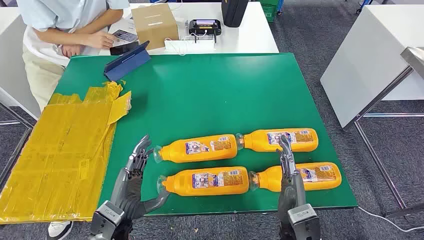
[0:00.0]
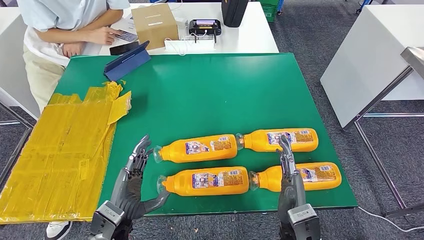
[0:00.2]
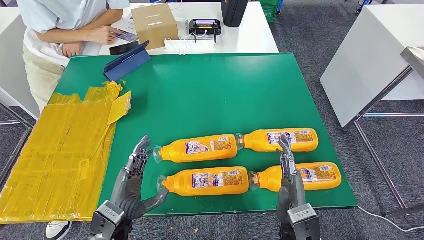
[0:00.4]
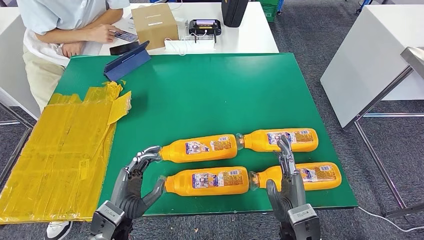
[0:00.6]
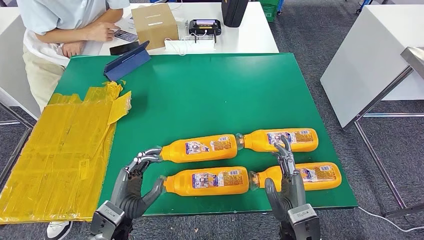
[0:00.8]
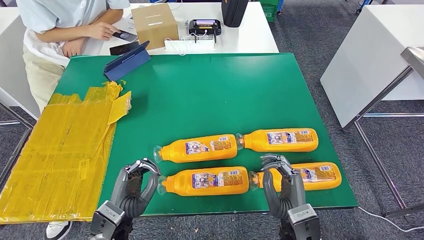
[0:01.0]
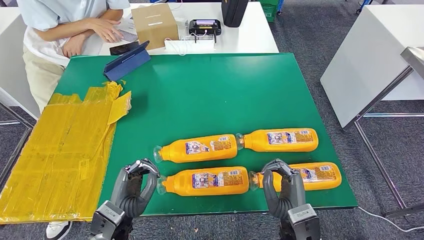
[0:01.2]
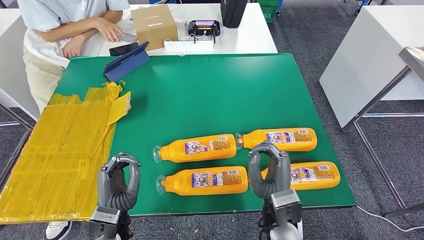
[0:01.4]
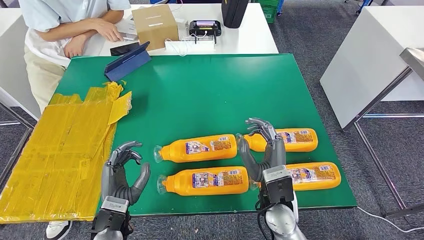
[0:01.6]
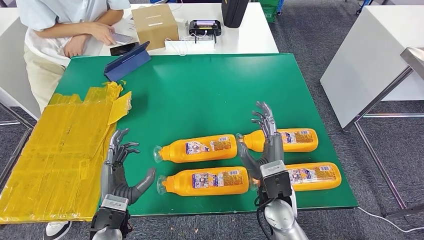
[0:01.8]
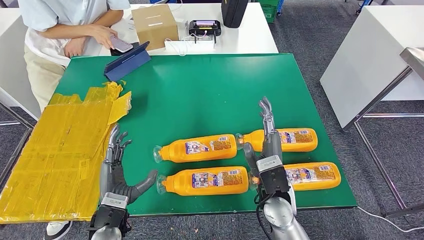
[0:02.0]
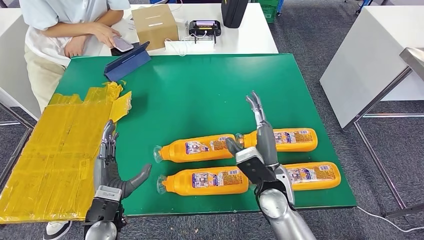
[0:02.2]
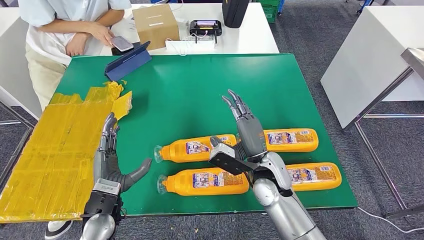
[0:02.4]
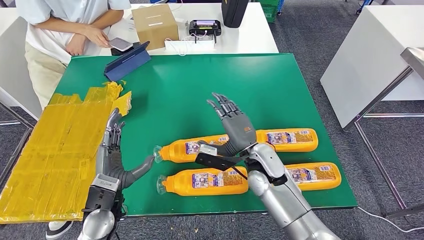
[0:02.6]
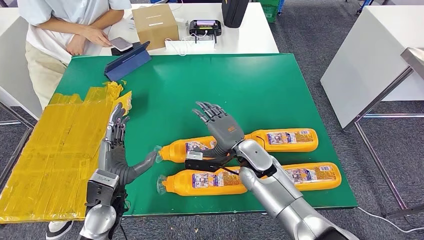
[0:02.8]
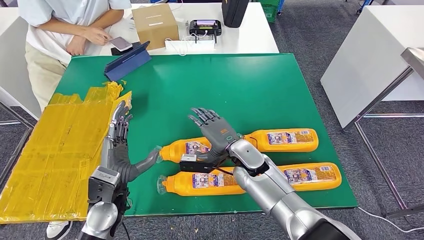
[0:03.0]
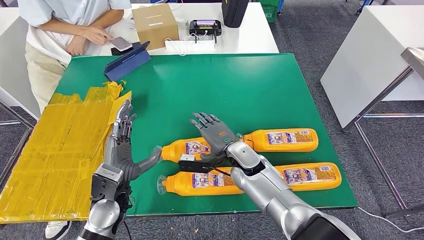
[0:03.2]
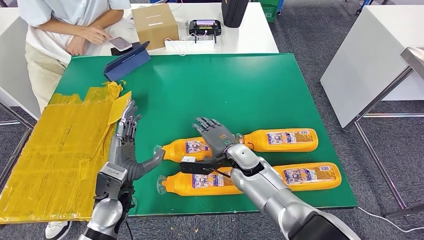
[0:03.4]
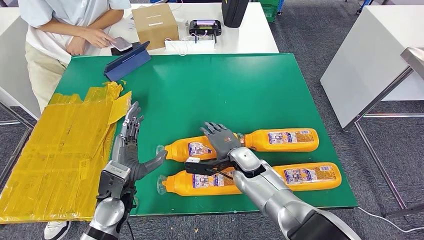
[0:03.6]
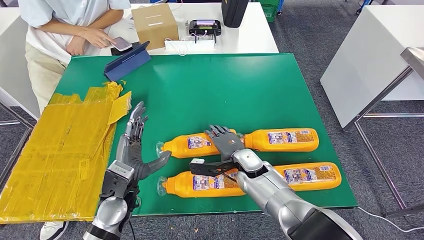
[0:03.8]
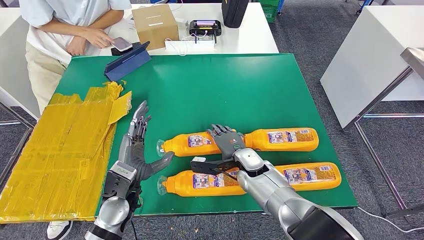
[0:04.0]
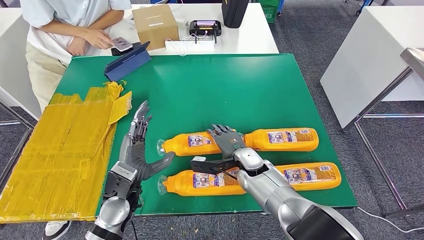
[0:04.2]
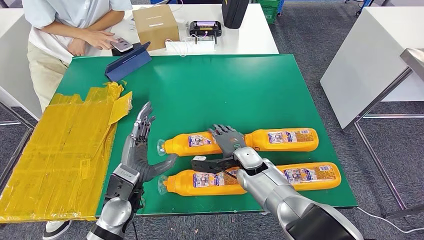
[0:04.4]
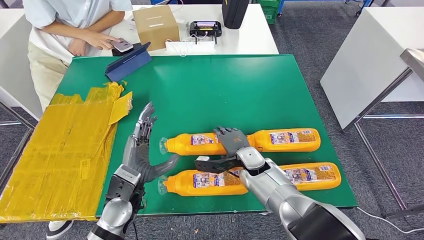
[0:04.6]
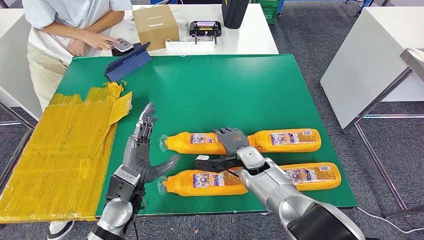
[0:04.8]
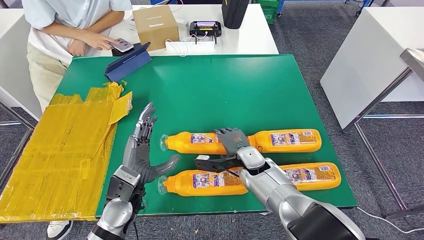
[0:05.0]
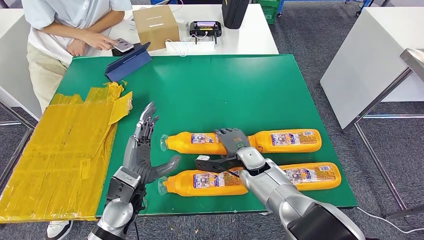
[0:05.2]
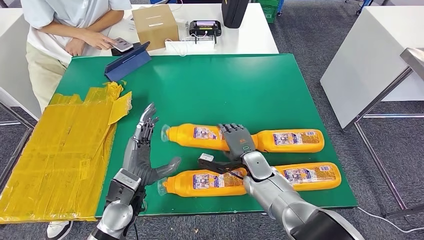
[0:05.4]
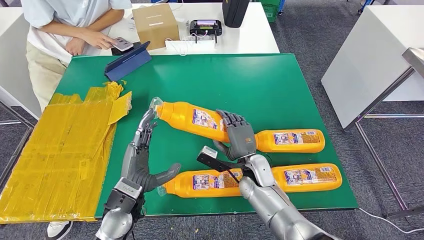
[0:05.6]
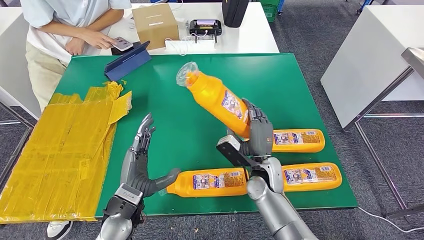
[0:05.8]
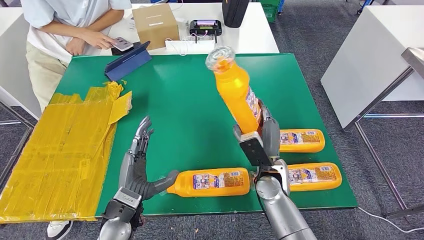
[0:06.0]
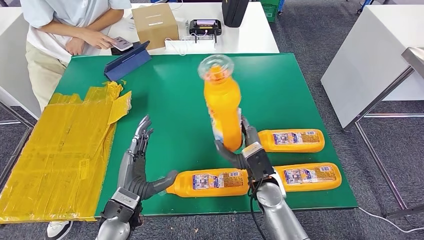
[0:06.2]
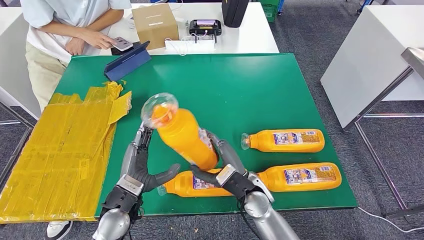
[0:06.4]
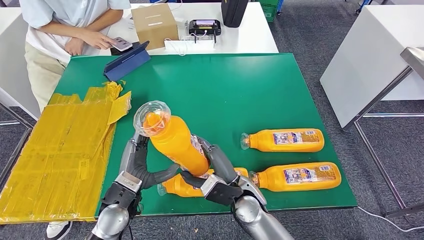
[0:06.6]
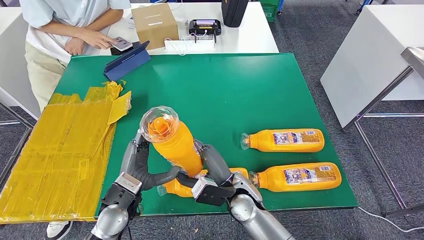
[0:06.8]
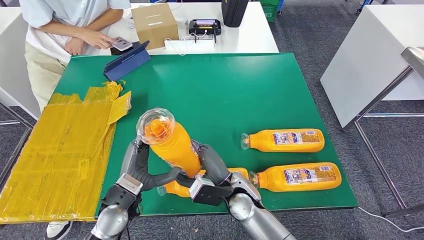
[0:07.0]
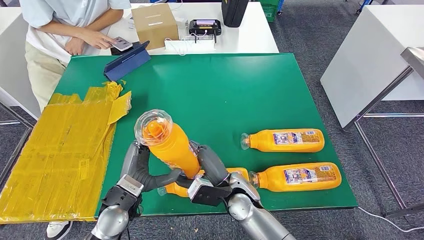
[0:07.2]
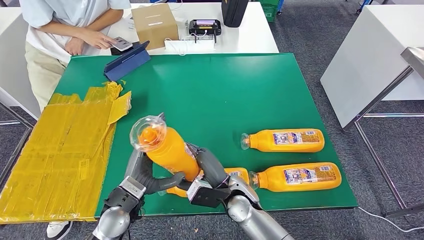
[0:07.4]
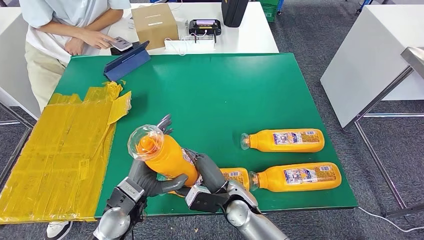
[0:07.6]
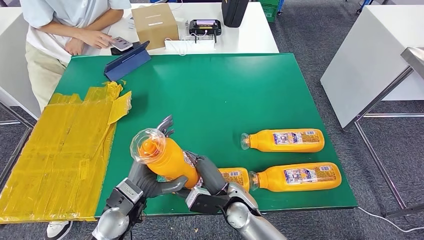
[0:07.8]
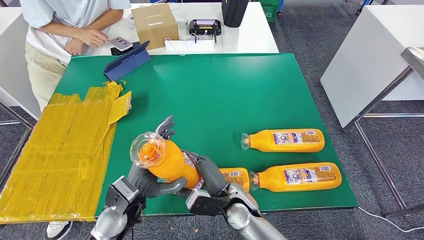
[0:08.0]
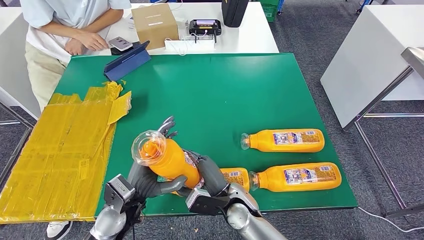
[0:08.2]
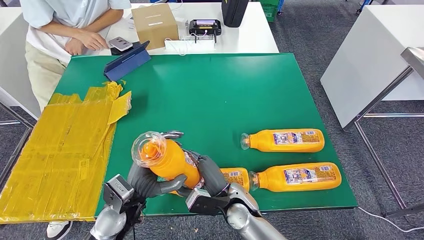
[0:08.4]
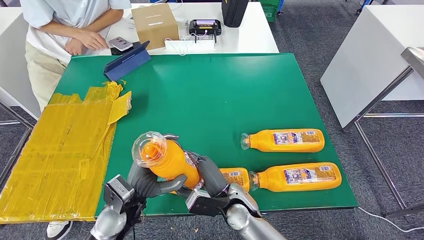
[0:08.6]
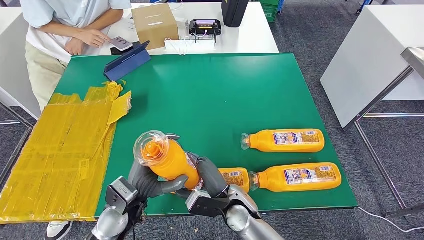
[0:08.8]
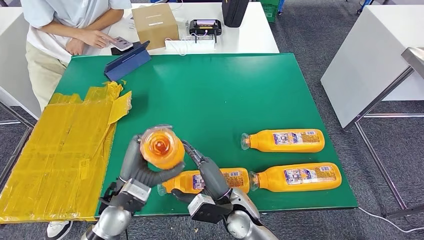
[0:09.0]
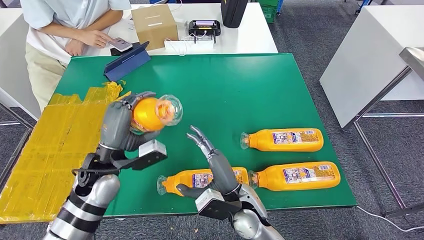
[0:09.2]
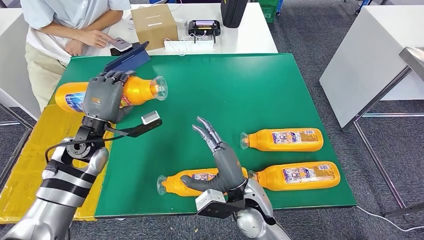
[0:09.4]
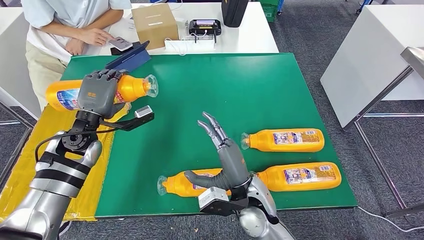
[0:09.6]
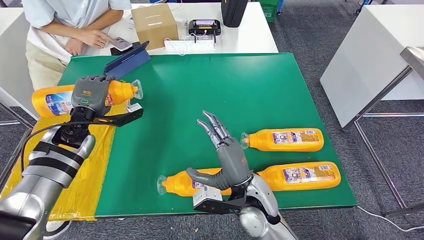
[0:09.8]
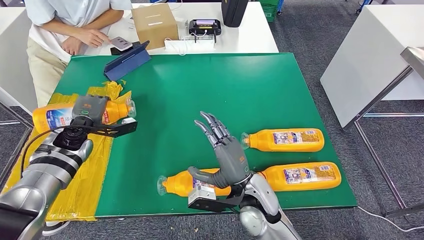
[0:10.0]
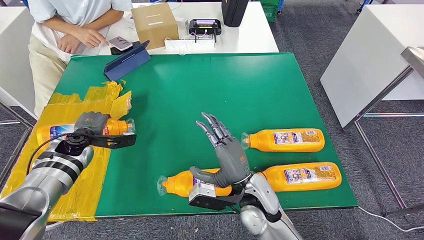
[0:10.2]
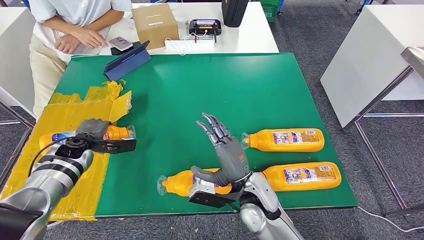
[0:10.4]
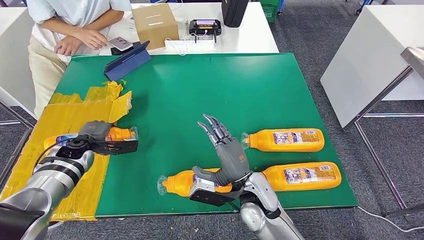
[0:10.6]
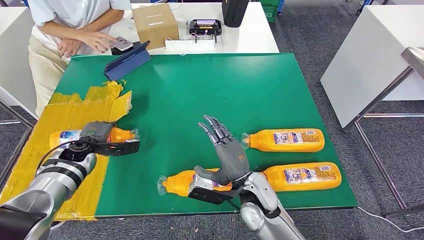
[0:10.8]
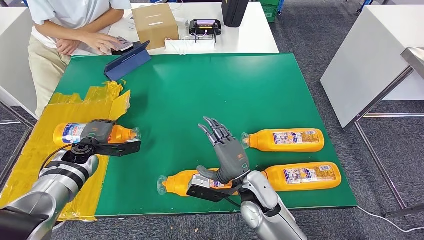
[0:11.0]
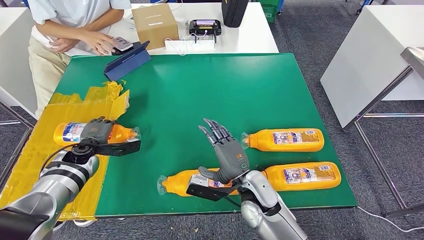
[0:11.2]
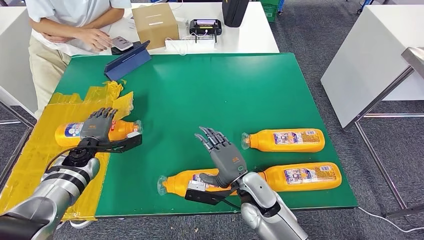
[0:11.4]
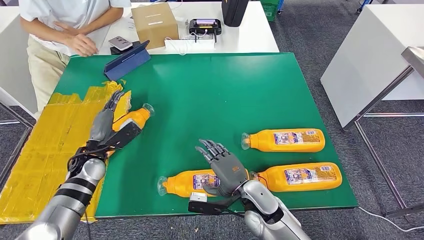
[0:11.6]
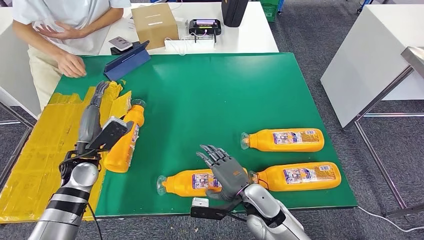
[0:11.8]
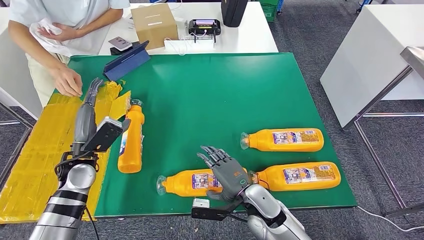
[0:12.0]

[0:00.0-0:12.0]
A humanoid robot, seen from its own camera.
Step, 0.0 to 5.8 s: Take the bottle from the table.
Step, 6.2 to 11.6 s: Flip the bottle to face forward.
1.6 to 3.0 s: The left hand moves forward, roughly 5 cm; the right hand shifts approximately 15 cm forward and to the left.
3.0 to 4.4 s: The right hand travels downward by about 5 cm.
4.4 to 6.0 s: The right hand moves backward, roughly 5 cm.
6.0 to 7.6 s: The right hand goes about 10 cm to the left and backward.
7.6 to 9.0 s: There are only small adjustments of the hands.
10.4 to 12.0 s: The right hand is displaced downward by roughly 5 cm. Meanwhile the left hand goes about 10 cm backward.

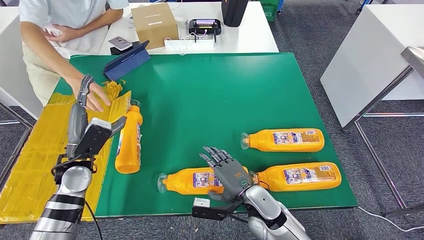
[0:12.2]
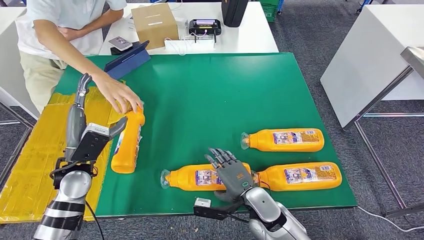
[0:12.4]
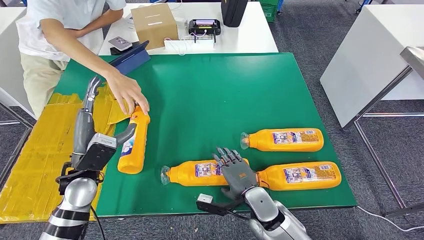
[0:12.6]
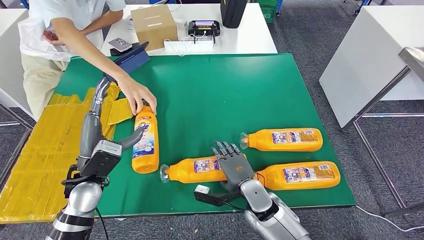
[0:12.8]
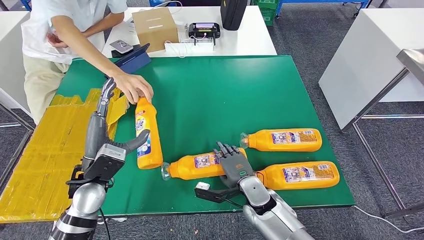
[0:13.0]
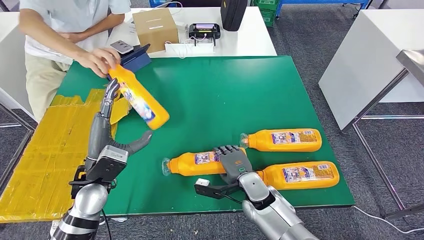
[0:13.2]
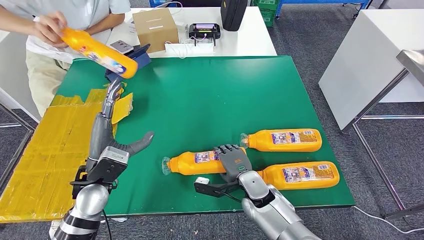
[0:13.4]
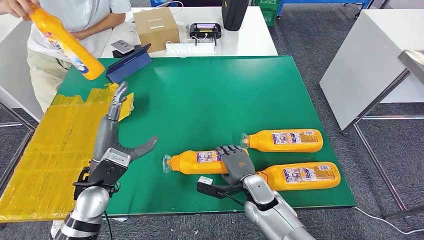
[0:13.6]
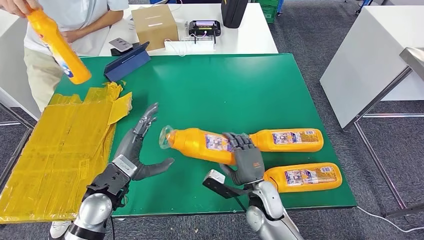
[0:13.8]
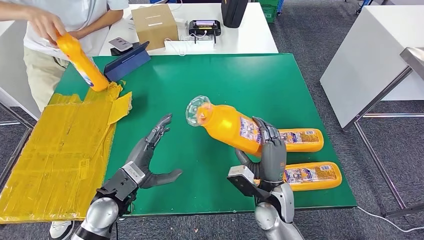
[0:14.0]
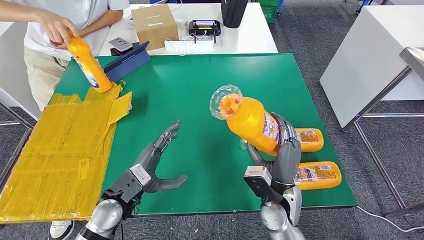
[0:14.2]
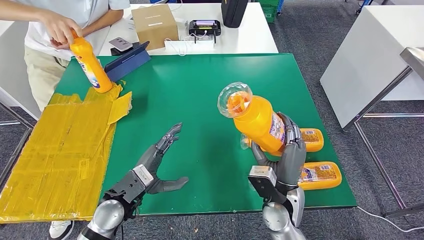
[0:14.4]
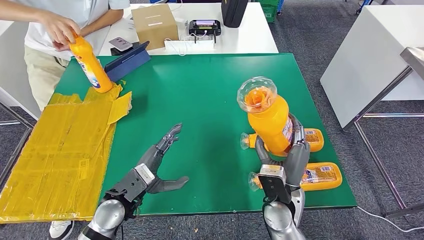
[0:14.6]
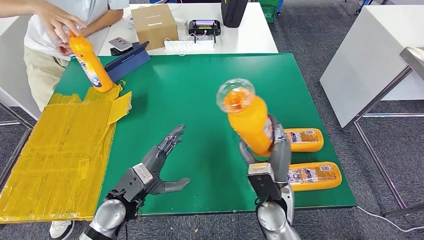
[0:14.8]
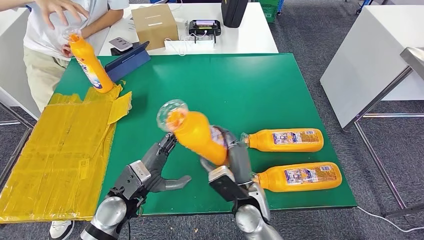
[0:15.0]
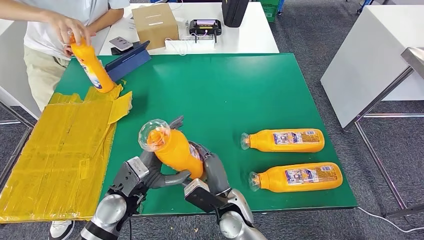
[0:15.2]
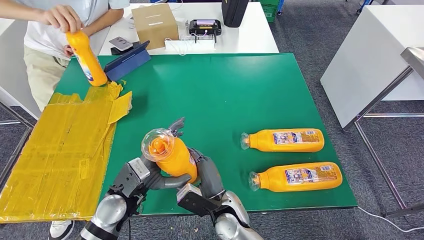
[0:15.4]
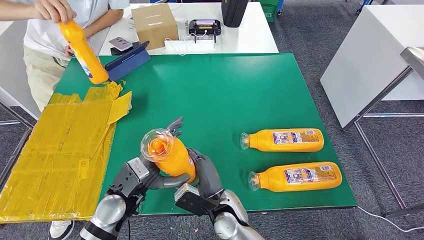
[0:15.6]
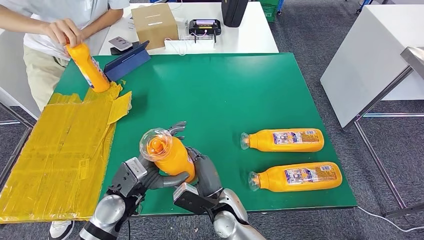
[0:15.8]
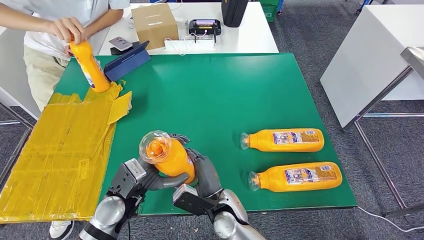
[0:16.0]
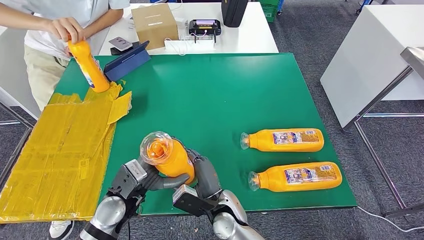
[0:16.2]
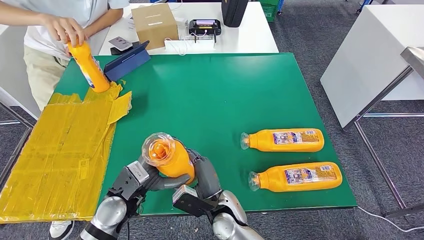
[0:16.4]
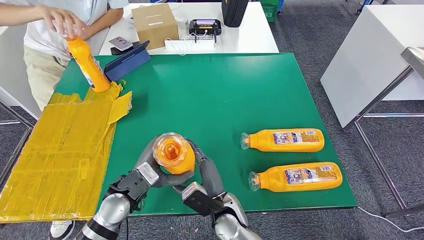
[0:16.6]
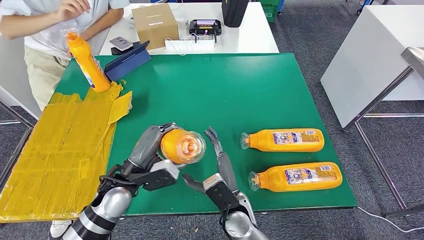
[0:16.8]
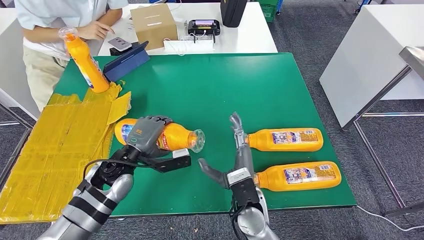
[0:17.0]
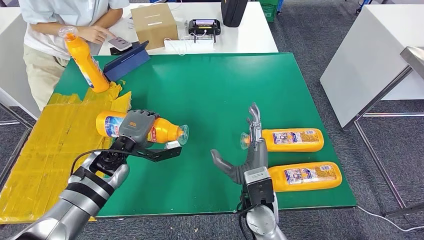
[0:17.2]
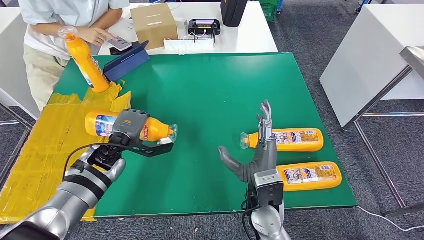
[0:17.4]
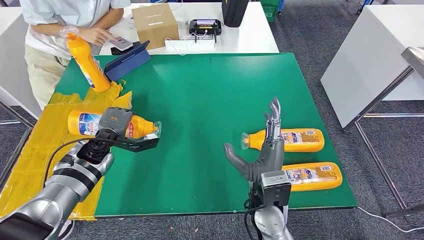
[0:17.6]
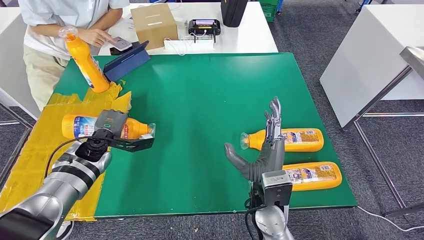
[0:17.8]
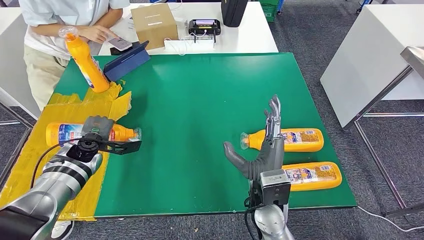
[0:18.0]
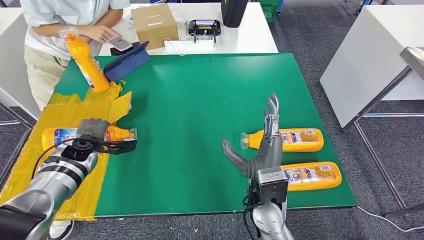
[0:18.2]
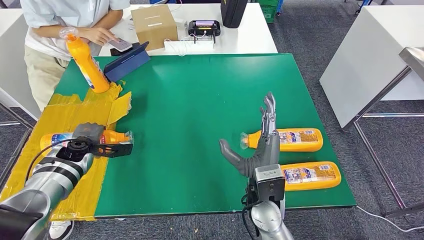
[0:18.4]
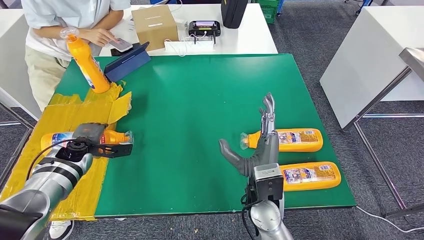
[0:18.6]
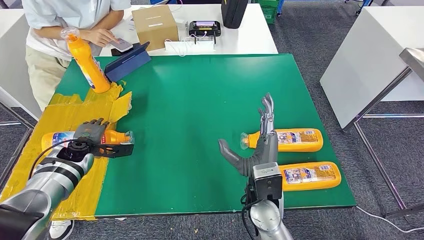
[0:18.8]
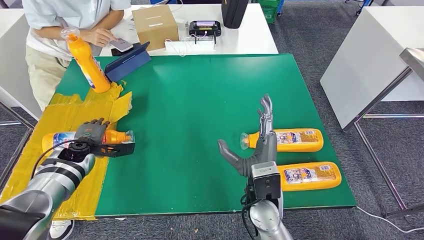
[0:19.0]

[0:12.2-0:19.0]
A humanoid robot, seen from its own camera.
Step, 12.2 to 14.2 s: Pick up the bottle from the table.
Step, 14.6 to 18.4 s: Flip the bottle to face forward.
15.0 to 16.2 s: The right hand travels to the left by some 5 cm.
17.6 to 19.0 s: The left hand goes about 10 cm to the left.
